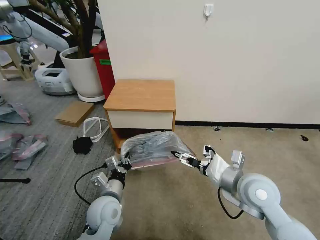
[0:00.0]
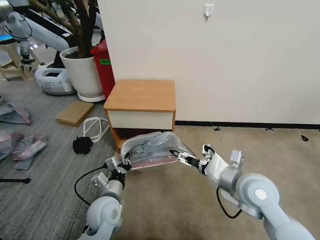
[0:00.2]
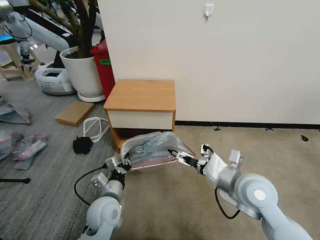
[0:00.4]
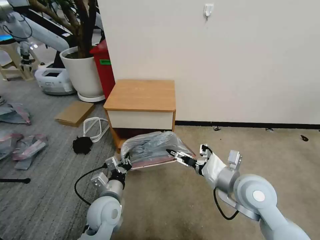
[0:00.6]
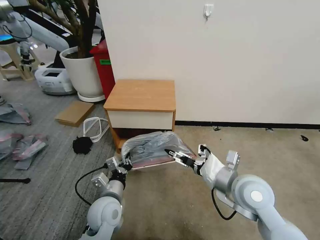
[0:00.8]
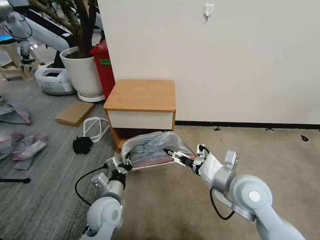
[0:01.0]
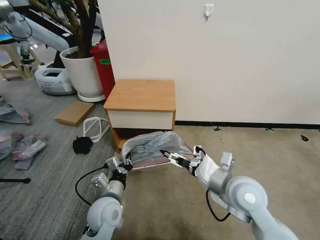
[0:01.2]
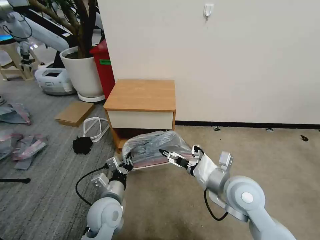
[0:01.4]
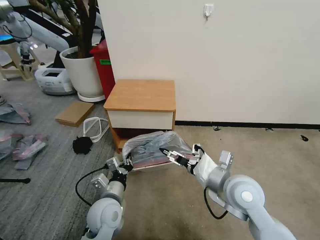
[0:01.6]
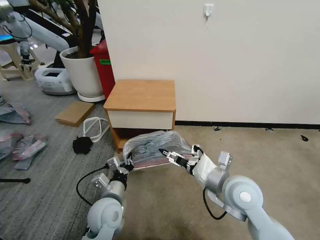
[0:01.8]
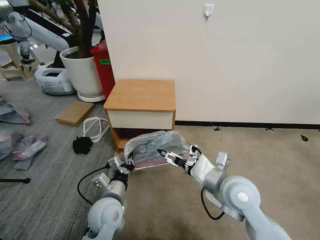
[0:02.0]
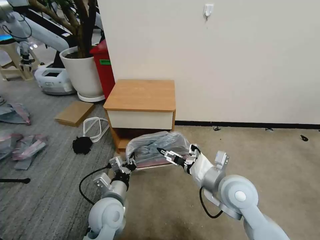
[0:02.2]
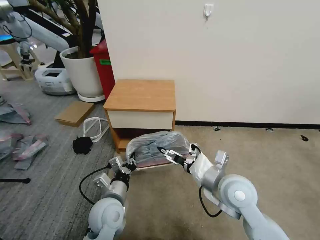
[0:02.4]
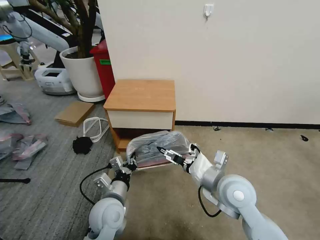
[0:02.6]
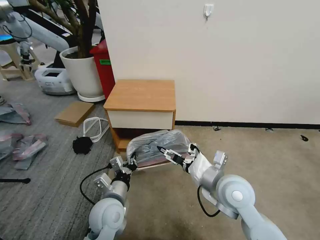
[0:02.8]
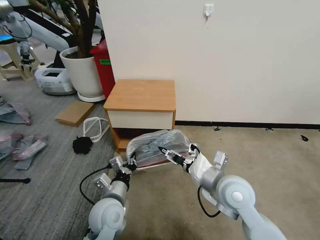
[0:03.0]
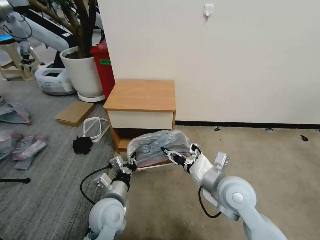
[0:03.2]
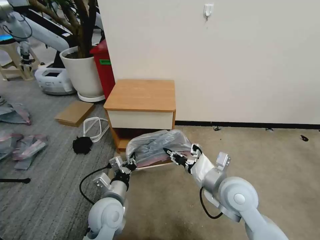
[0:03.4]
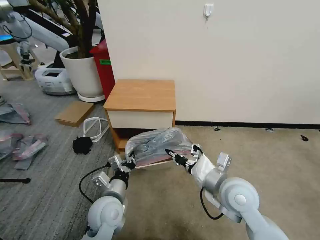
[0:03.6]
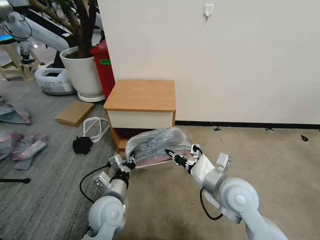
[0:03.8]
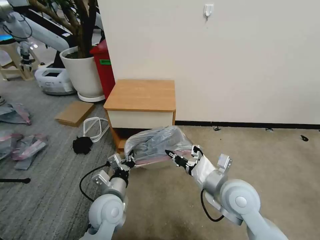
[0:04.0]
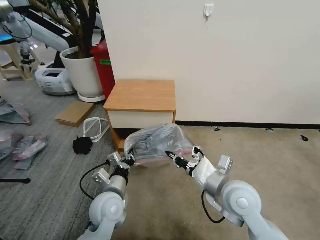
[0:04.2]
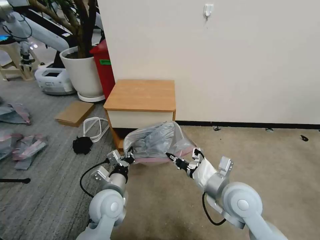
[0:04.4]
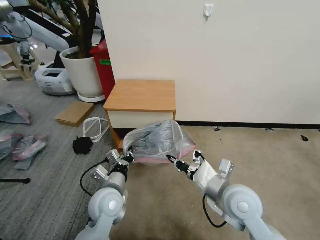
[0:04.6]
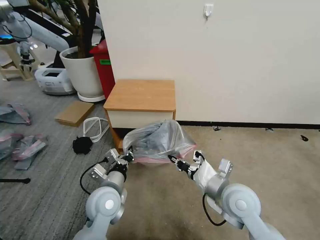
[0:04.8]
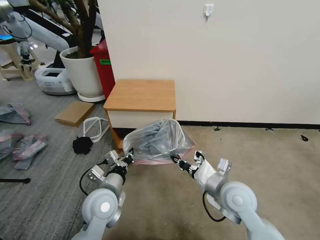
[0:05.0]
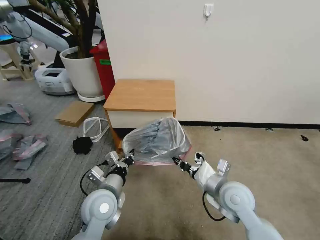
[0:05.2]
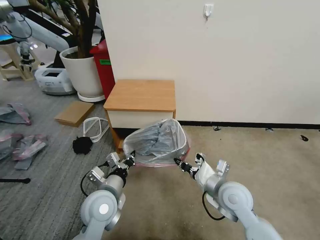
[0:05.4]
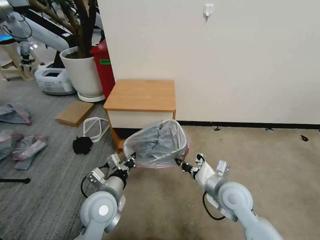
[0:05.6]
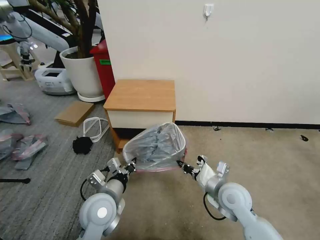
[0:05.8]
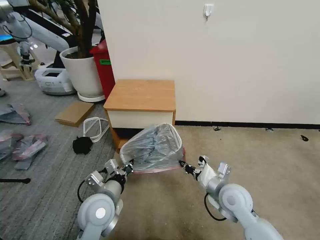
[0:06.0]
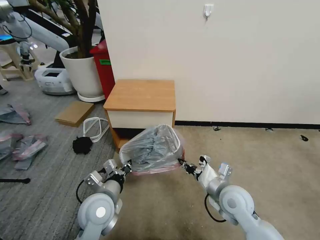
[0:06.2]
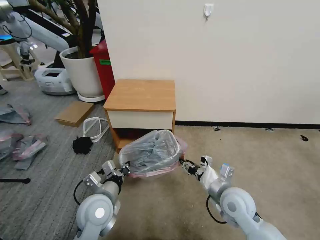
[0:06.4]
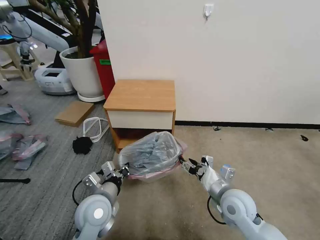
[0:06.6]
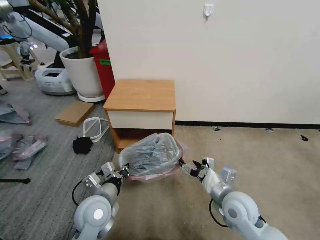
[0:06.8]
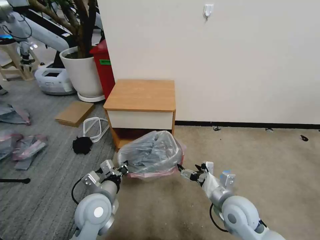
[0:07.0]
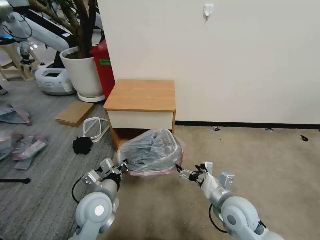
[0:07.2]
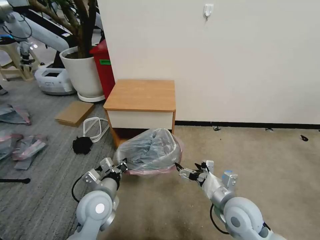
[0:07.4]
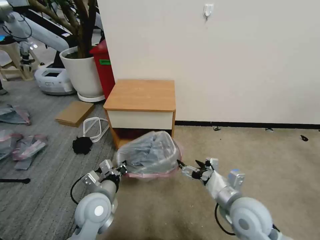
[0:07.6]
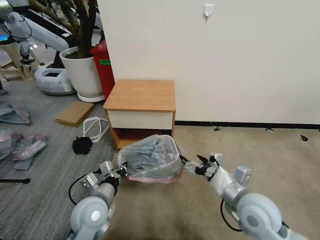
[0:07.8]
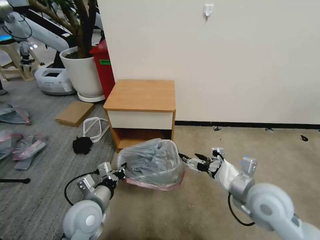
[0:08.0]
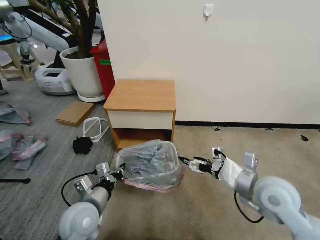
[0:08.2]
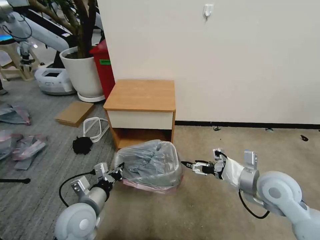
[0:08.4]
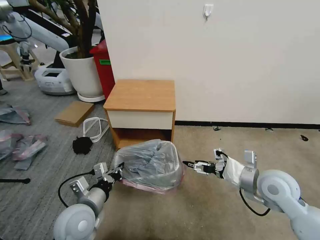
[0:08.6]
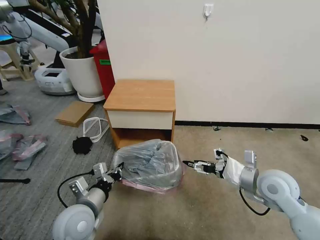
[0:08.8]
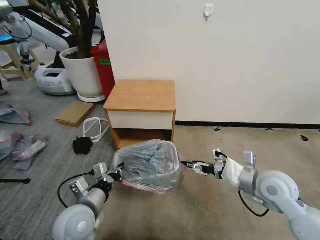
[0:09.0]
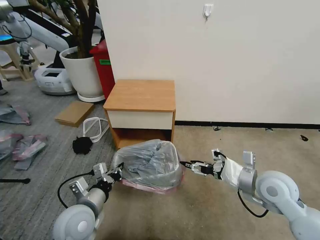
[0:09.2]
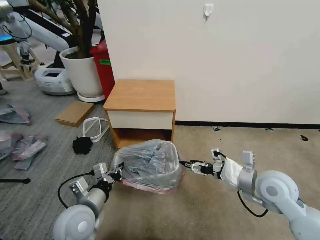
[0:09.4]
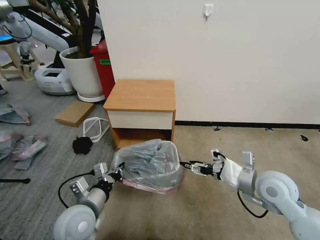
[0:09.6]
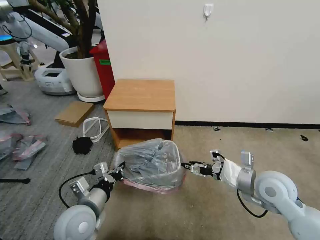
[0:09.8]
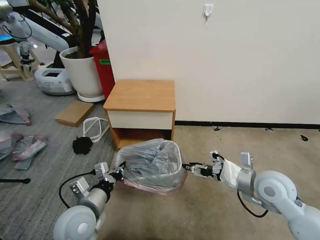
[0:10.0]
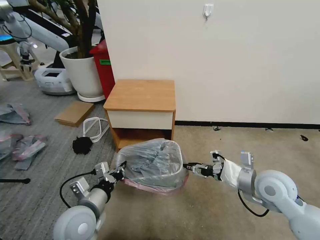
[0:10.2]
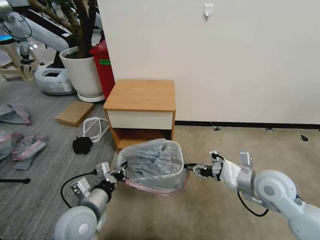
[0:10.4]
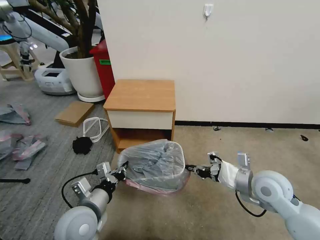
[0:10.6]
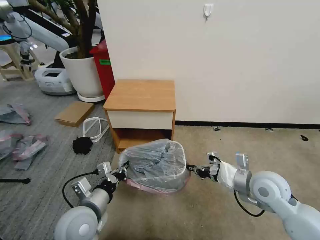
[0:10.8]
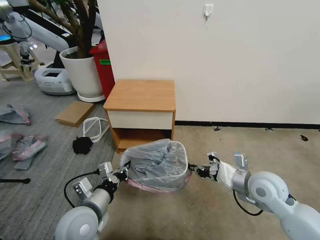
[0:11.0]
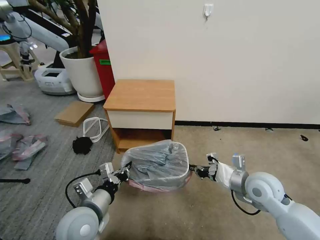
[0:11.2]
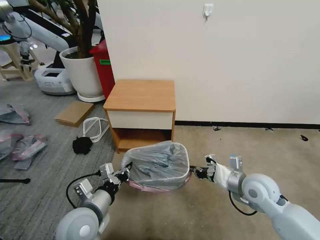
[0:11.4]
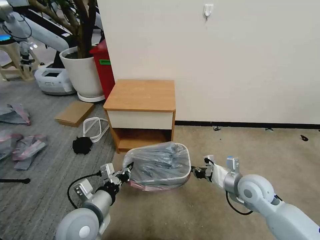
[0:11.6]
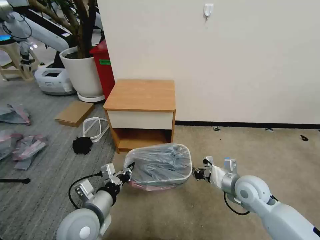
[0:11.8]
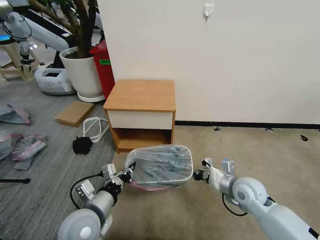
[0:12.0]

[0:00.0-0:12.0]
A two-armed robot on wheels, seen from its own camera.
Task of the whole recording: Pick up the garbage bag from the table and place it over the trash can.
0:00.0 to 0:01.6: The grippers stay close to where they were, moving slightly.
0:01.6 to 0:03.0: The right gripper closes up.
0:03.0 to 0:04.4: The right gripper closes up.
0:04.4 to 0:06.0: The right gripper is displaced downward by approximately 10 cm.
0:06.0 to 0:07.6: The right gripper travels backward by some 5 cm, and opens up.
0:07.6 to 0:09.0: The right gripper travels to the right and forward by some 10 cm. Meanwhile the left gripper moves about 5 cm.
0:09.0 to 0:10.4: The right gripper closes up.
0:10.4 to 0:12.0: The right gripper shifts some 10 cm downward.

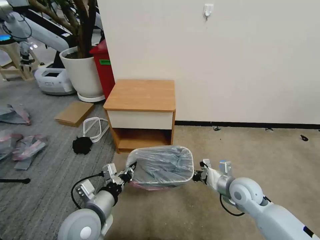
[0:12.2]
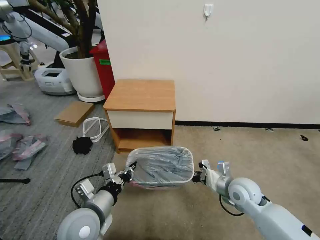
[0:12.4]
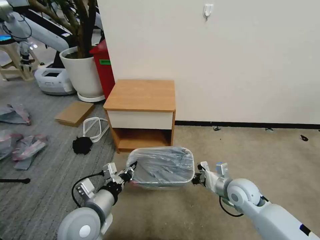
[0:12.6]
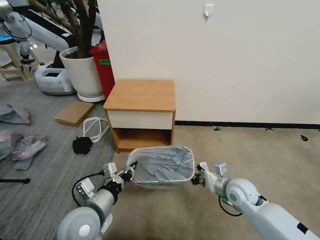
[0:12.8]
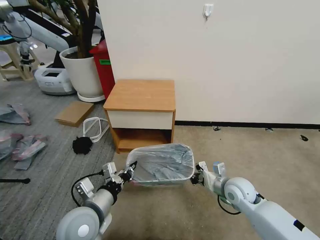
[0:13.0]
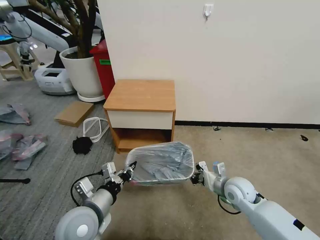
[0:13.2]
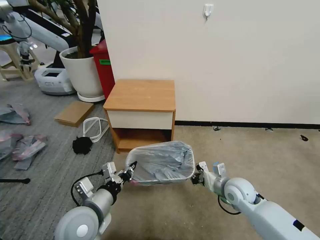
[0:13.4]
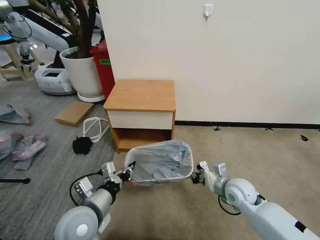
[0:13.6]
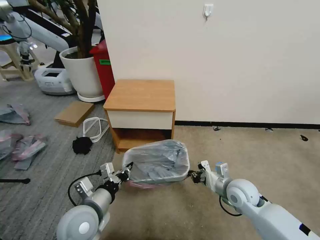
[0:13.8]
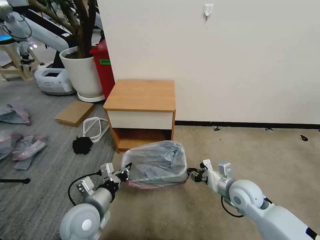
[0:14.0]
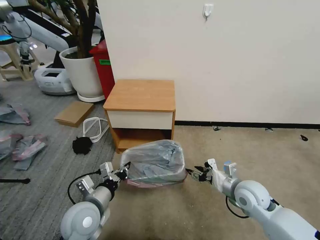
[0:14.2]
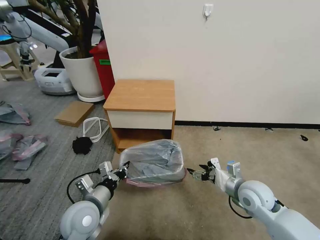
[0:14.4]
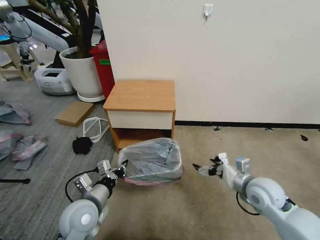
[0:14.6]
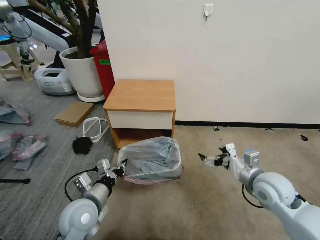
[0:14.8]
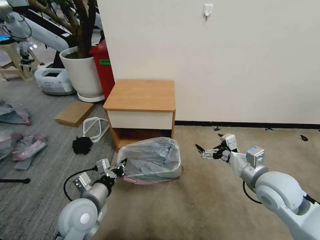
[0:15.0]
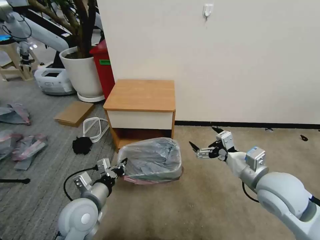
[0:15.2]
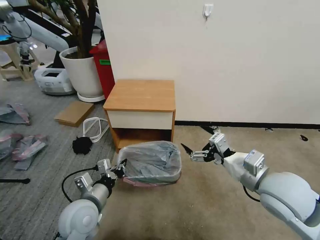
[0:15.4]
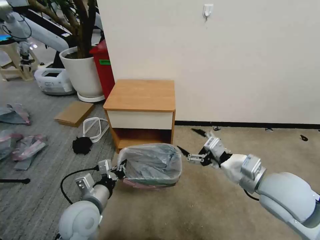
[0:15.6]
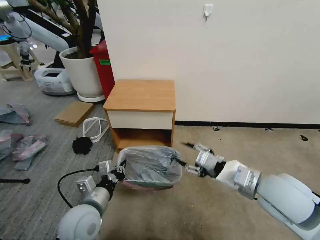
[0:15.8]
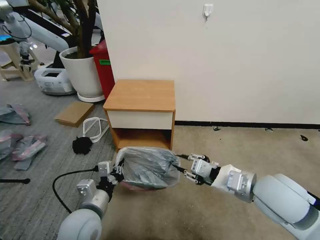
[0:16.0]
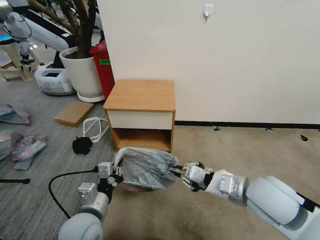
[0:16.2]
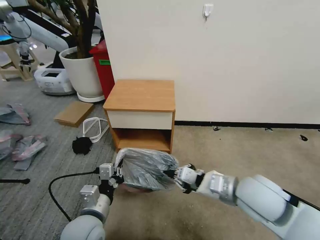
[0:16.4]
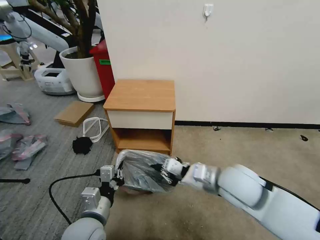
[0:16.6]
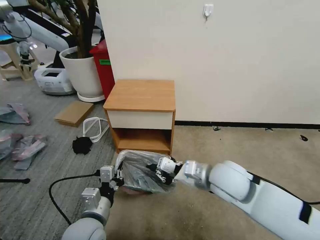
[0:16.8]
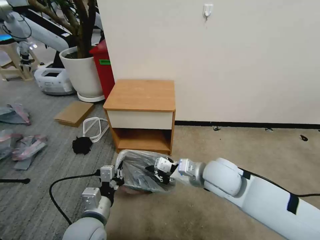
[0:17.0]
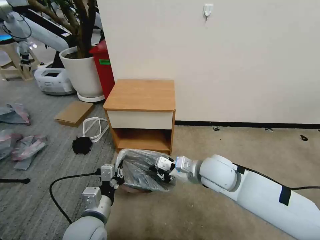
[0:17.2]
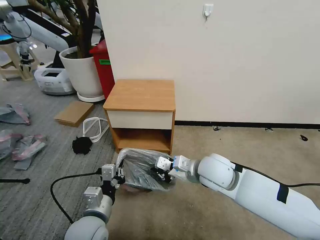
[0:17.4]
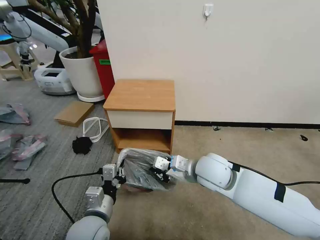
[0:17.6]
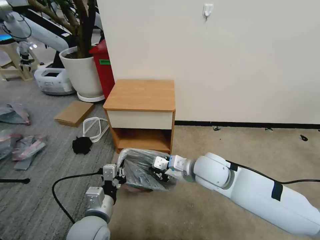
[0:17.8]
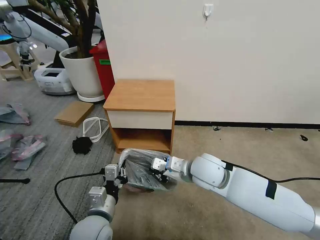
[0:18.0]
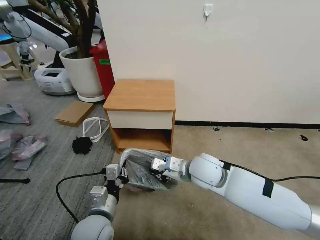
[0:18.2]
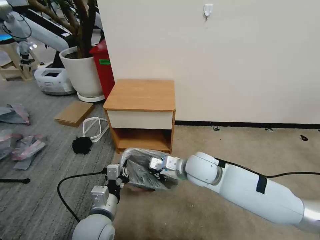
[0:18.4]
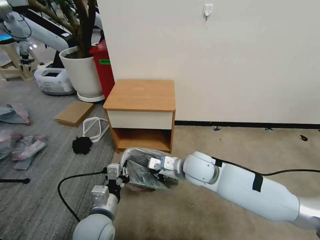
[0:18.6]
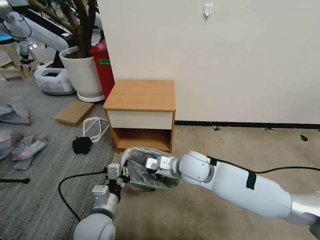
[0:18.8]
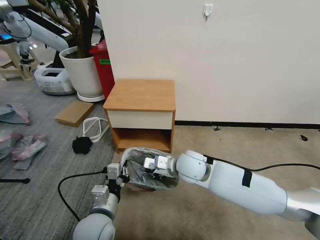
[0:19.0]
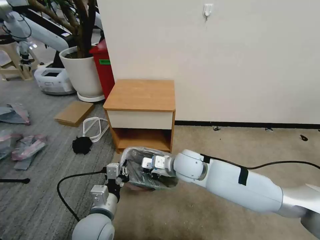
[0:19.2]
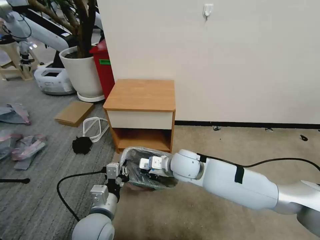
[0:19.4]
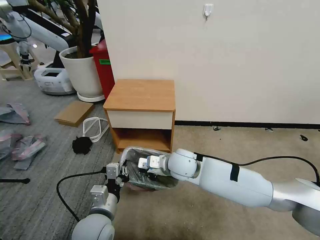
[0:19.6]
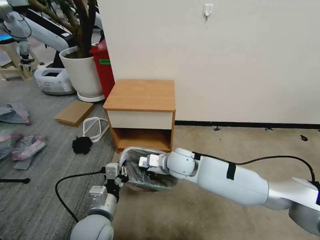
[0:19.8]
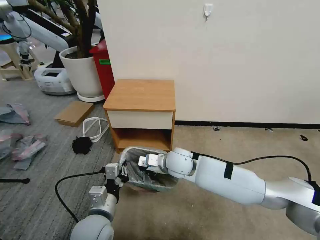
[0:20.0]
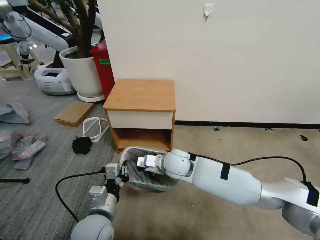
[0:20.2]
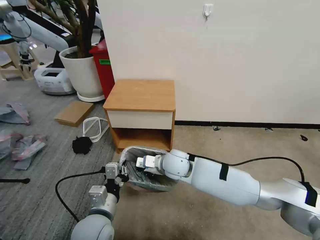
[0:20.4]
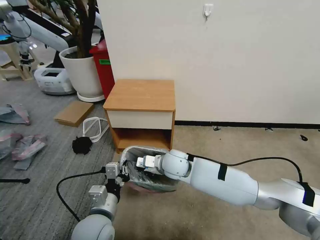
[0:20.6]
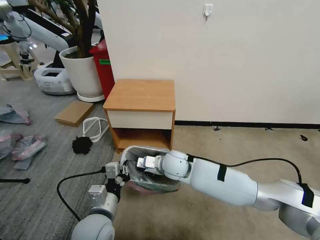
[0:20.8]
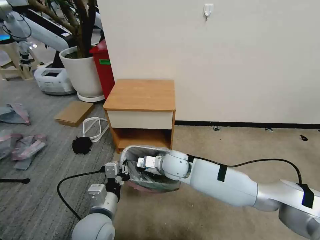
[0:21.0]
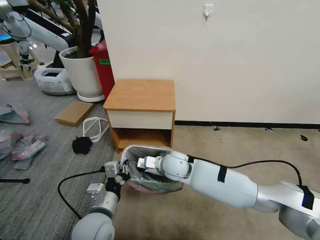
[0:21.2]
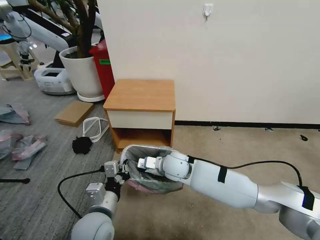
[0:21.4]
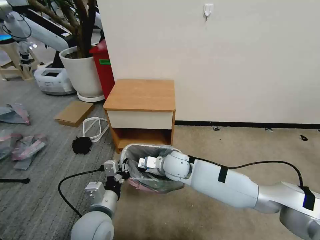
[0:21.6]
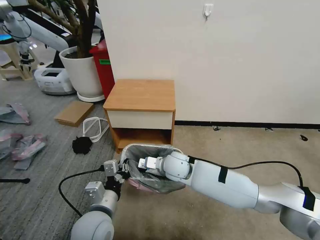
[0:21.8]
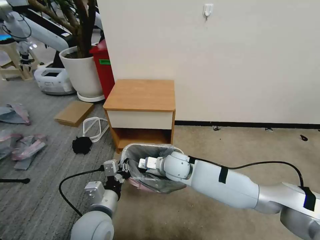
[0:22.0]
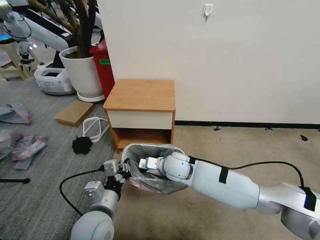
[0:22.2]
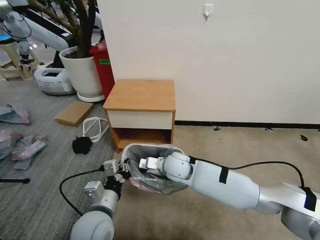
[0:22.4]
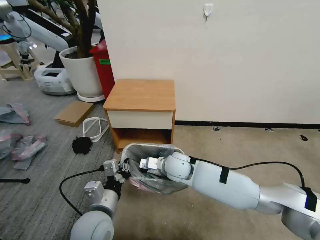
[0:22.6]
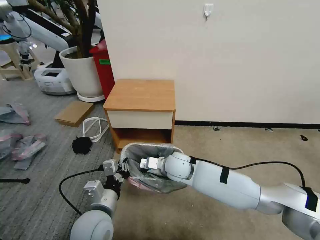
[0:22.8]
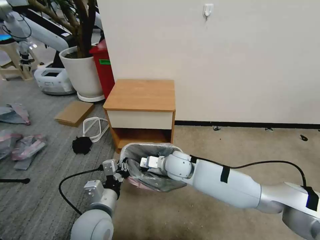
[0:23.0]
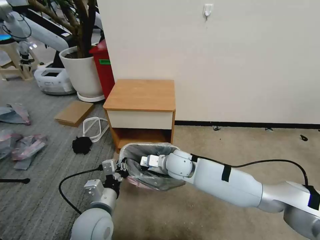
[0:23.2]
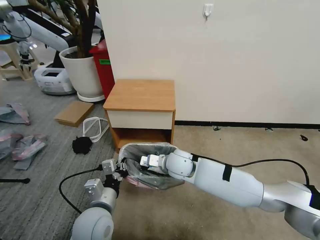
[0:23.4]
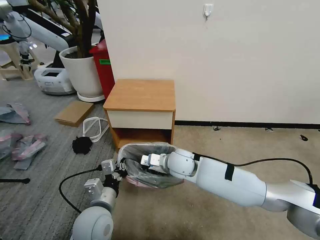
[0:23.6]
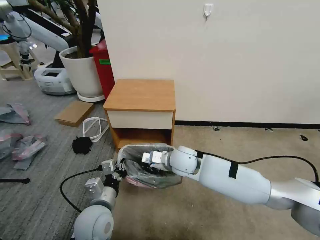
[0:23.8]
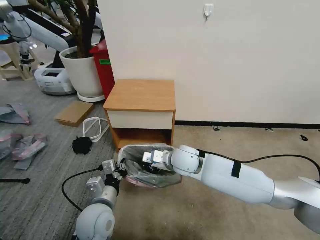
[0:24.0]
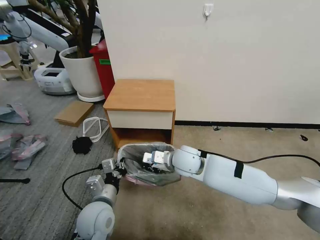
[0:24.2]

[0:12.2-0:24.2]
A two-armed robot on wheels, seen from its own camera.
Task of the whole recording: Pick up the garbage bag from the table and place it over the trash can.
0:12.2 to 0:13.8: The grippers move only a little.
0:13.8 to 0:15.2: The right gripper shifts about 15 cm upward, and opens up.
0:15.2 to 0:16.6: The left gripper moves about 5 cm; the right gripper heads to the left, covering roughly 10 cm, and closes its fingers.
0:16.6 to 0:18.2: The right gripper travels forward and to the left by approximately 10 cm.
0:18.2 to 0:19.8: The right gripper moves to the left, roughly 5 cm.
0:19.8 to 0:22.6: There are only small adjustments of the grippers.
0:22.6 to 0:24.2: The right gripper shifts by approximately 5 cm.
